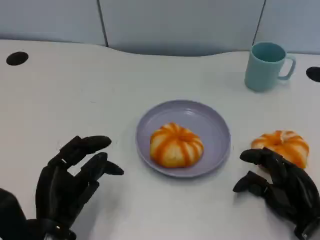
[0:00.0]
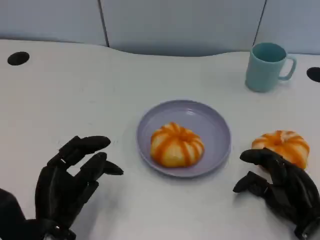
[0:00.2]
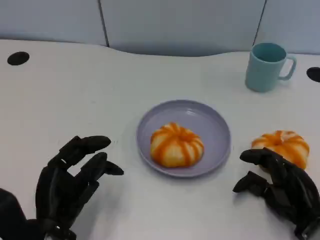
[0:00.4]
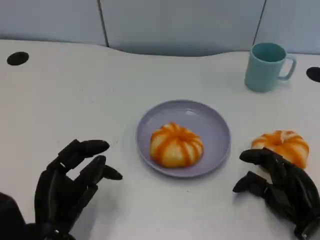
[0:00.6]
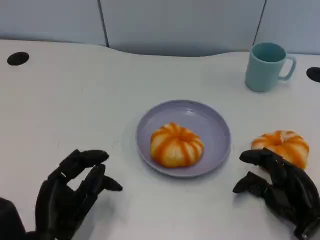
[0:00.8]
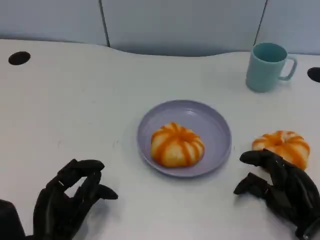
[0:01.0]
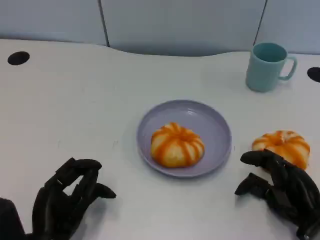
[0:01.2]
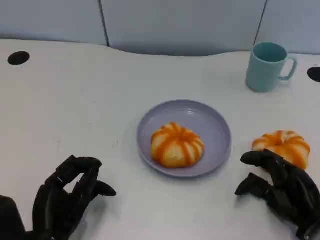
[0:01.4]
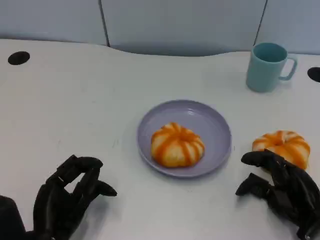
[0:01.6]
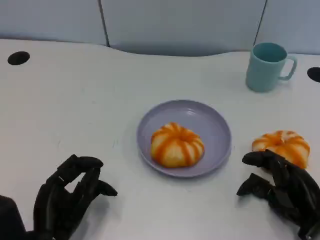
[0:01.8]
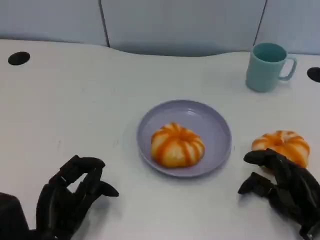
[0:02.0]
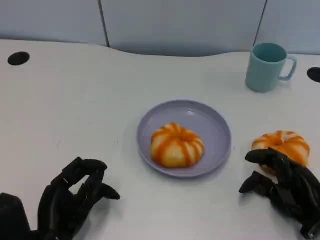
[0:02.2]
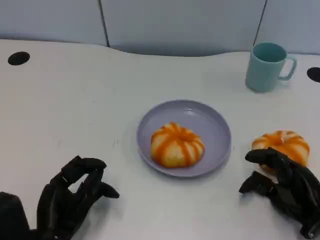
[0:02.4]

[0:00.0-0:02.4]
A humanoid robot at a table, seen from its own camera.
Task of the whole recording: Grasp the bread from the table and place it into the plate.
0:00.0 to 0:01.2: There are only small adjustments of the hands.
0:01.2 to 0:02.4: The two hands keep their place.

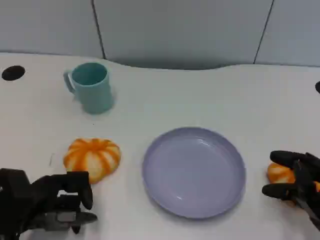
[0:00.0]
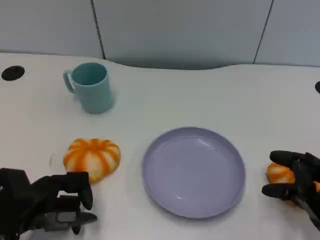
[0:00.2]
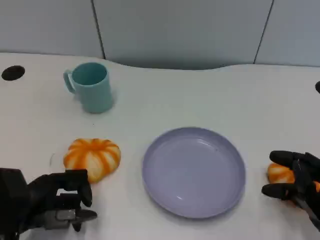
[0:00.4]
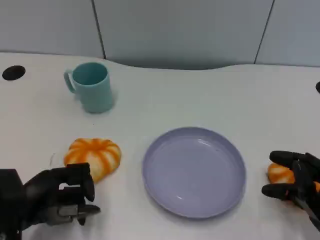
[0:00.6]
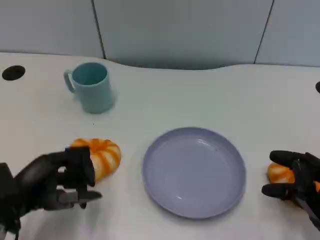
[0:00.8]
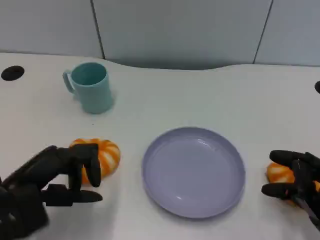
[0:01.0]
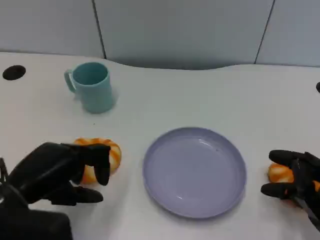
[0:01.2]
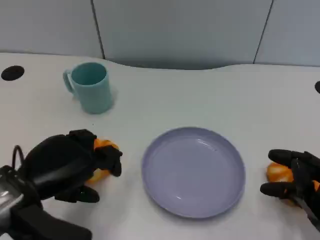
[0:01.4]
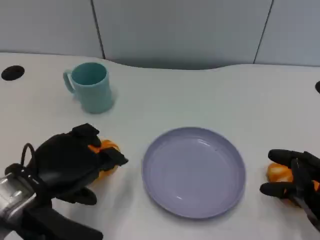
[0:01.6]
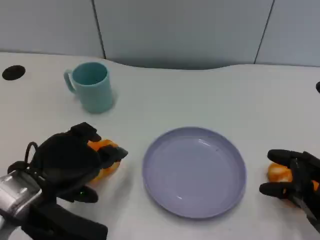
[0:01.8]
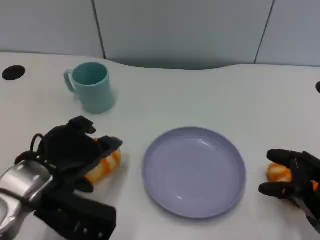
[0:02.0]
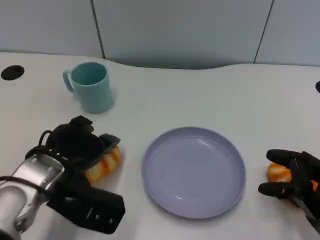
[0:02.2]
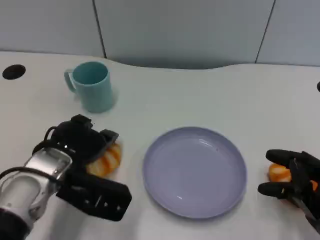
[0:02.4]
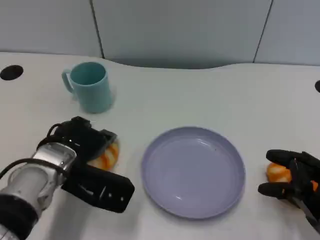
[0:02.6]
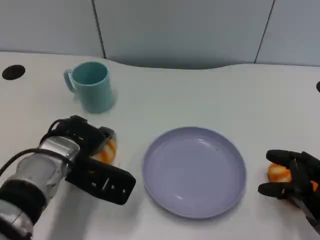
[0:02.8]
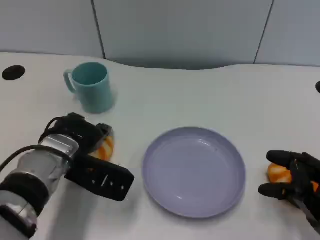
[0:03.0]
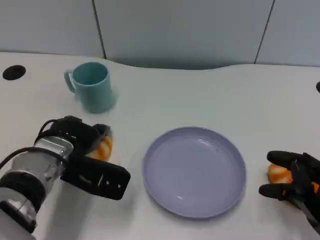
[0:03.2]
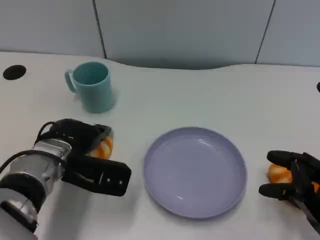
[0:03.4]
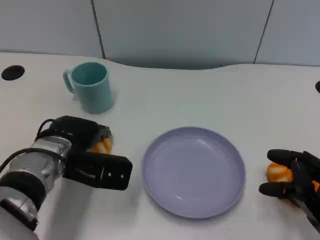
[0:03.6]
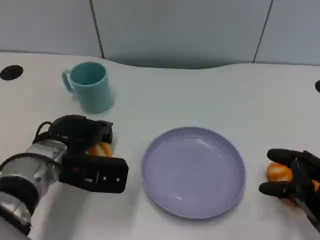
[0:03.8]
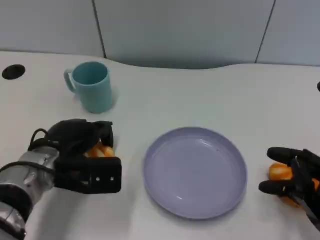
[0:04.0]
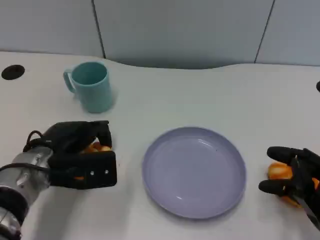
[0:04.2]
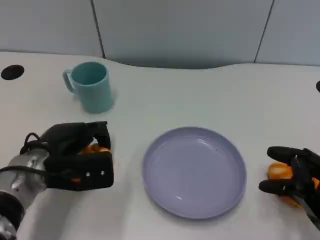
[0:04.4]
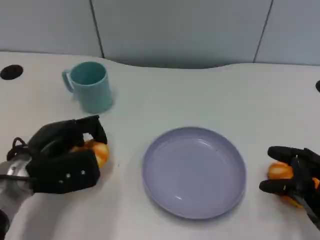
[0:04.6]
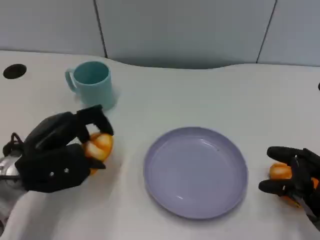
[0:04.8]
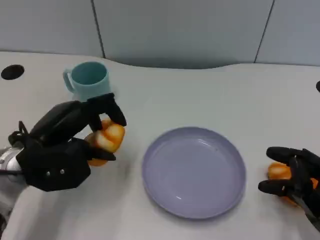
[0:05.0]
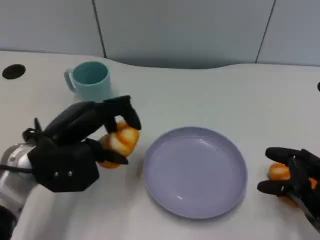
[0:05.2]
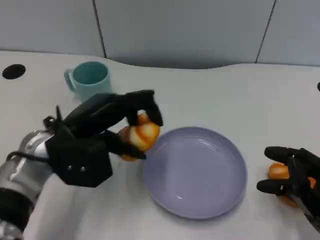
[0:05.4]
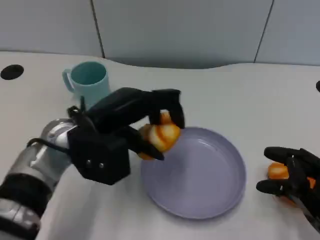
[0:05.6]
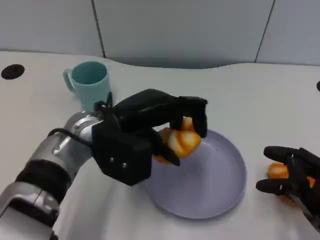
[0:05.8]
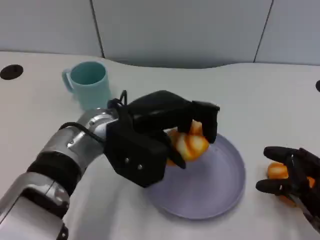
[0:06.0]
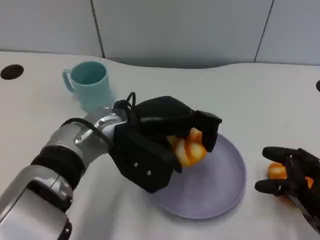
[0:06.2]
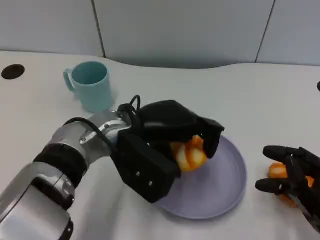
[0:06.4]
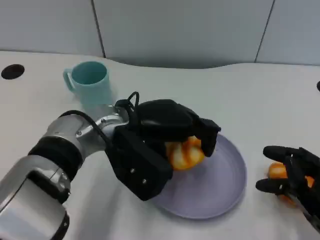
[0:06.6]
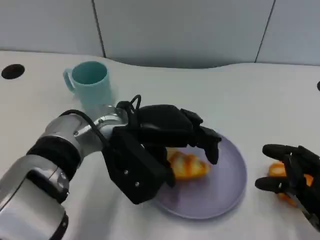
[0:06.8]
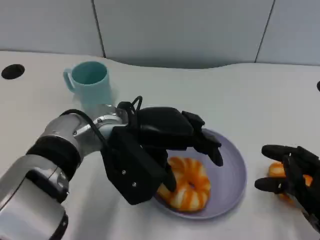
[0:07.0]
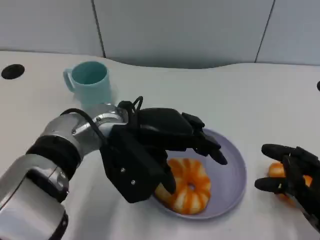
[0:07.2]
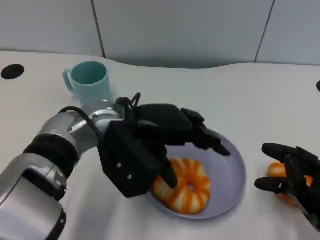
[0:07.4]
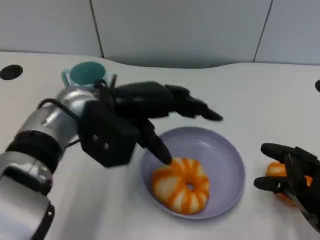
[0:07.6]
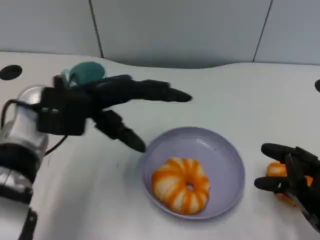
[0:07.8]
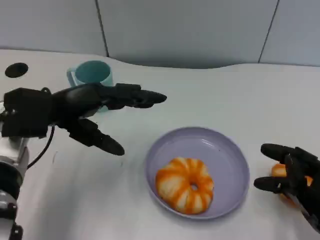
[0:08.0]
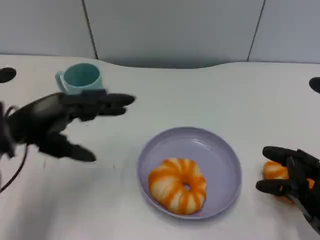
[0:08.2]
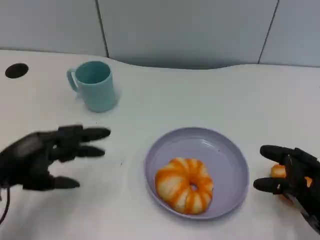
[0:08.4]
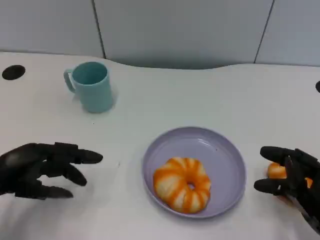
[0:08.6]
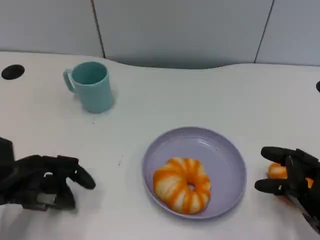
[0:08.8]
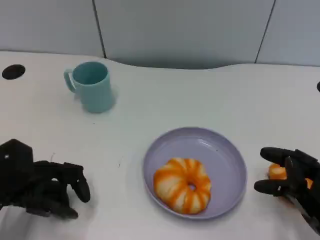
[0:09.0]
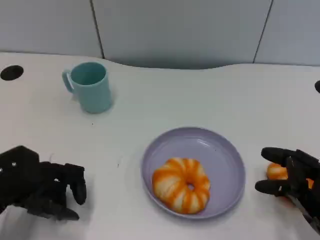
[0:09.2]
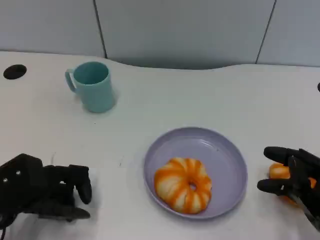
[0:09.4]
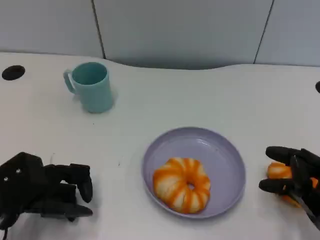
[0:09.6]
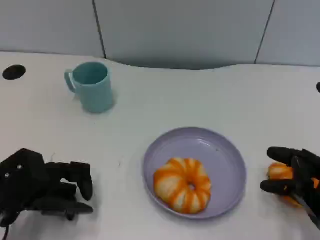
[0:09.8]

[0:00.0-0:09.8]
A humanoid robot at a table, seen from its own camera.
Task of the whole recording: Grasp the bread from the table and place it into the plate.
0:00.0 to 0:01.4: The left hand travels upward by some 5 cm.
0:01.4 to 0:02.8: The left hand heads forward and to the right, covering roughly 10 cm.
0:04.2 to 0:05.6: The left hand goes approximately 10 cm upward and to the right.
0:07.0 to 0:08.4: The left hand is displaced to the left by some 20 cm.

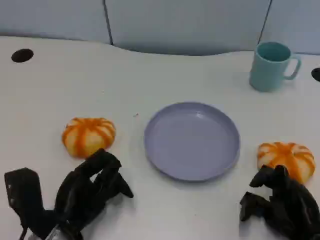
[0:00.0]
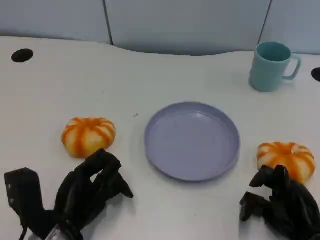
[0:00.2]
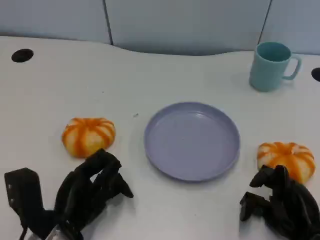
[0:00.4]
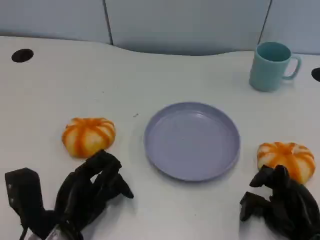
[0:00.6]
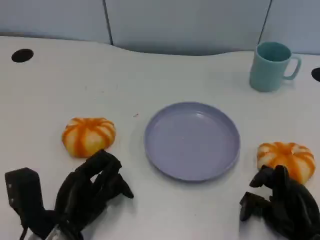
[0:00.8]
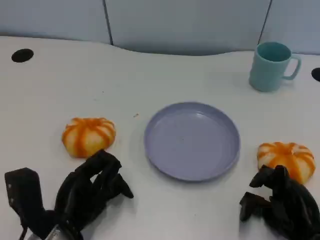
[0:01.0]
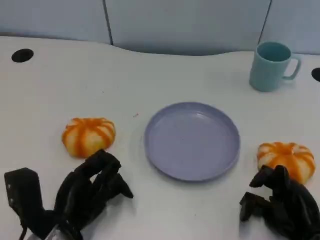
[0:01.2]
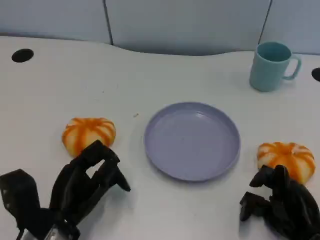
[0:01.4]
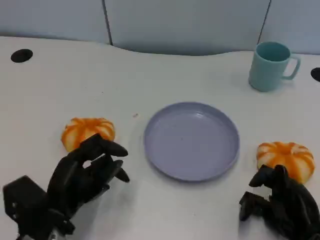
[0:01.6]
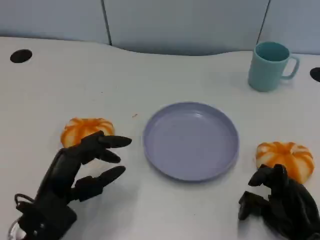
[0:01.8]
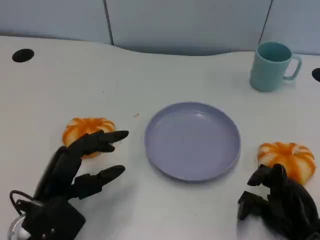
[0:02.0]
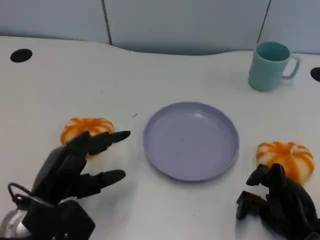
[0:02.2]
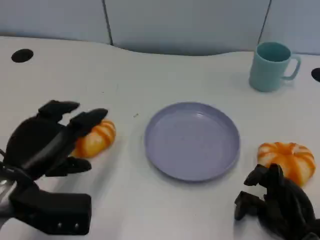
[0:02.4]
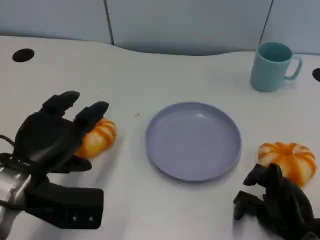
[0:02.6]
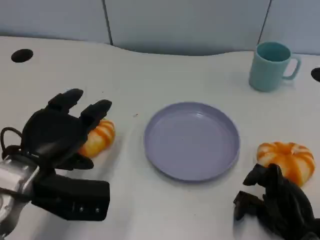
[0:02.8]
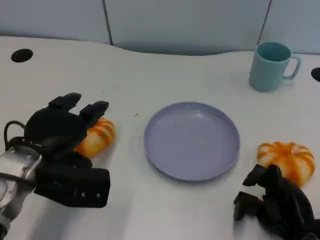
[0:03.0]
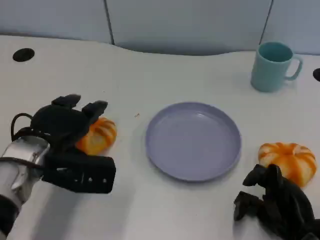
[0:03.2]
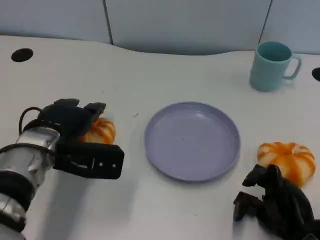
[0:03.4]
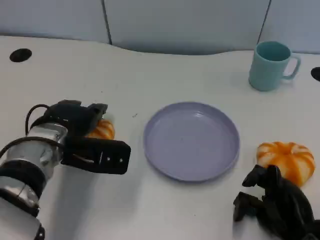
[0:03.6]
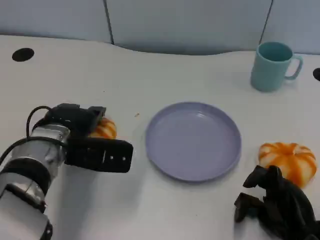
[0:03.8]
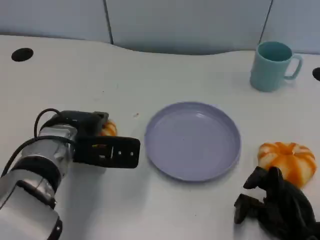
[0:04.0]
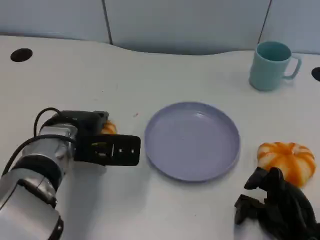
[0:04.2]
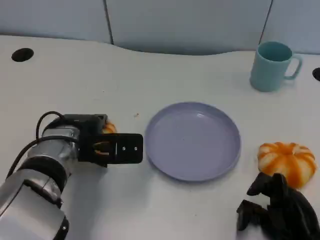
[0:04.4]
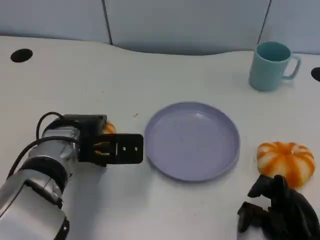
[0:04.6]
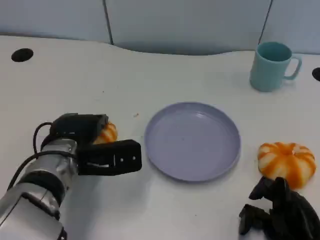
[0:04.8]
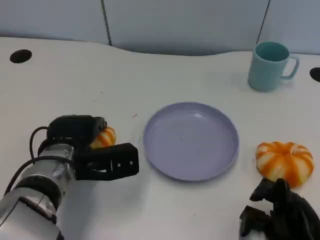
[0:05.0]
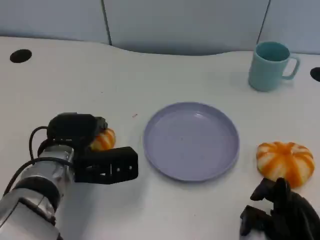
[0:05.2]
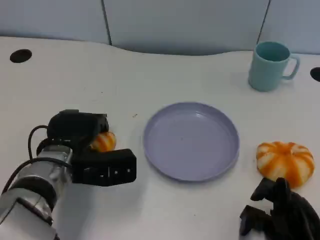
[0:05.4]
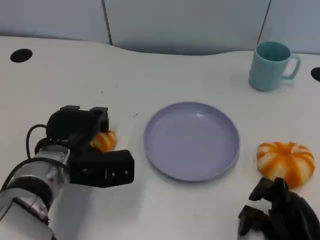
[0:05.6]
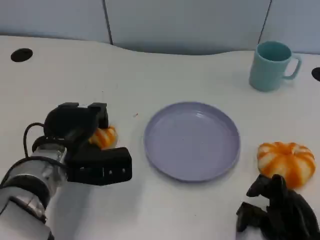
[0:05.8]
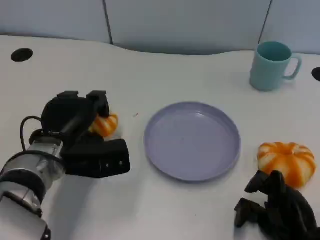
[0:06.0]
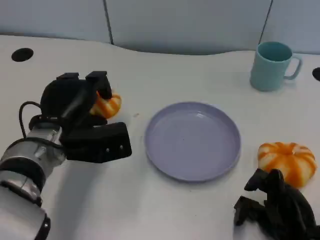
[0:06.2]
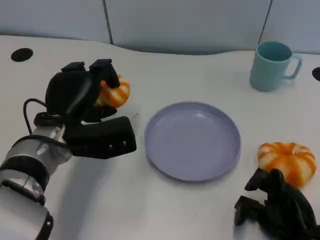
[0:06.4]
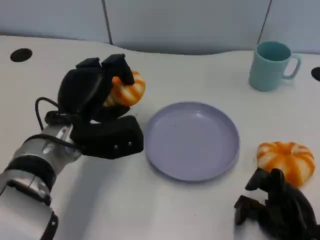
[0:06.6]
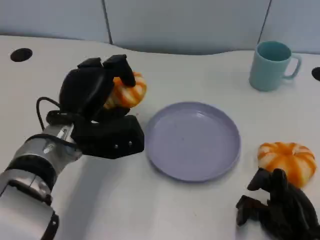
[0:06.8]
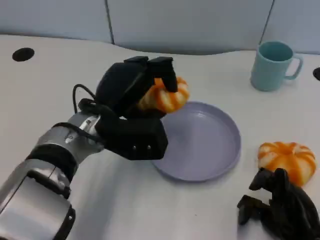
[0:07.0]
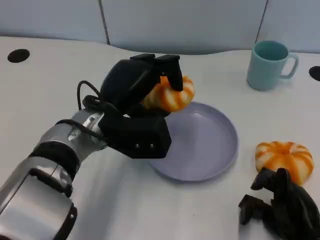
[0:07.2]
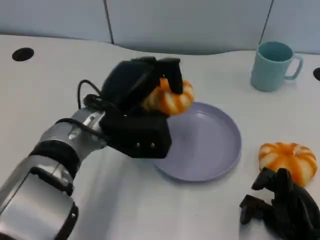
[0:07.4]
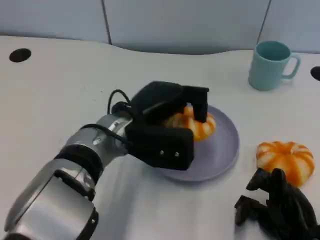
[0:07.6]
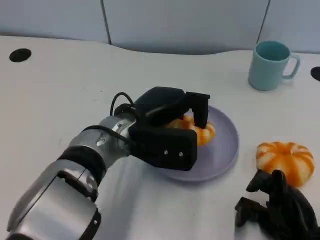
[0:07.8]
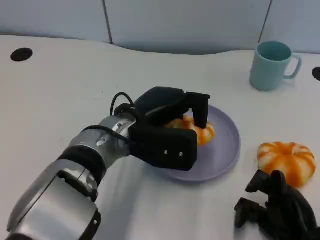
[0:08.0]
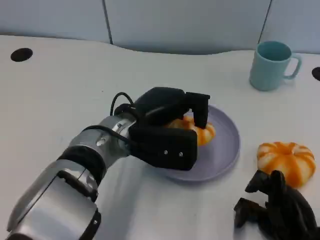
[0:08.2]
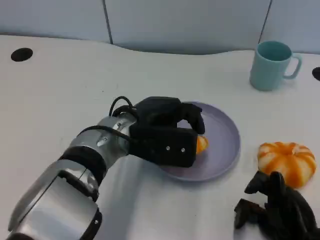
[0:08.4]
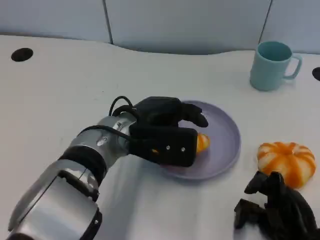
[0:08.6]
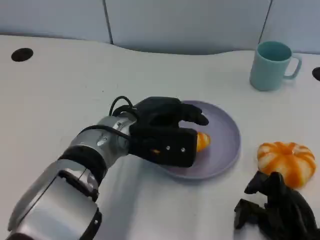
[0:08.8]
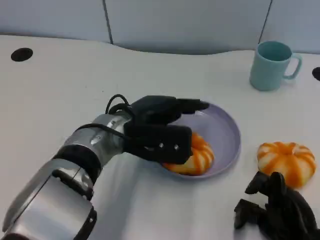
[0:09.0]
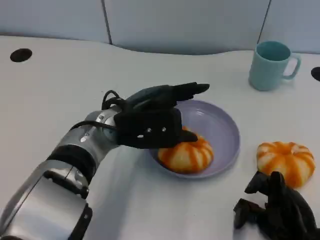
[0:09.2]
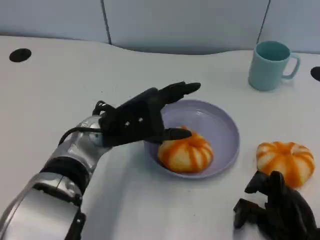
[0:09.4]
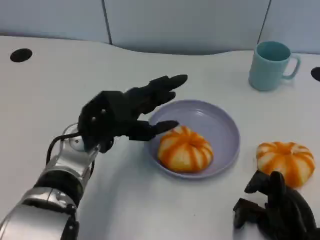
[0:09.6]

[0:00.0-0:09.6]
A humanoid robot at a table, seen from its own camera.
Task of the whole recording: Grasp the bread from the table and place it into the plate.
0:01.6 to 0:03.2: The left hand shifts approximately 10 cm forward and upward.
0:06.4 to 0:08.0: The left hand moves to the right, some 10 cm.
0:08.0 to 0:09.6: The left hand is displaced to the left by roughly 5 cm.
